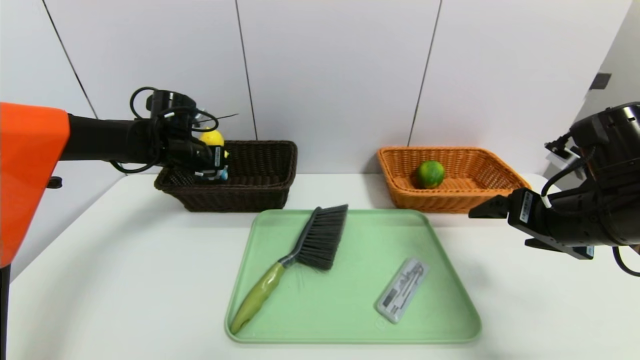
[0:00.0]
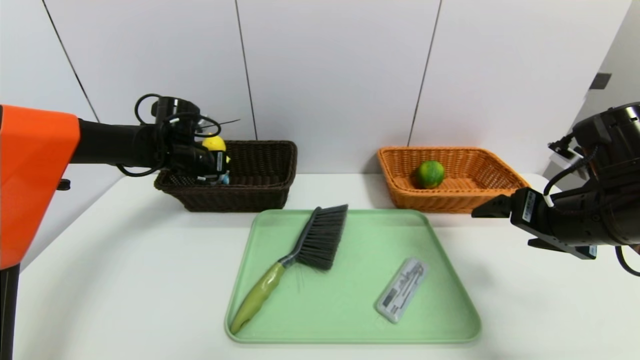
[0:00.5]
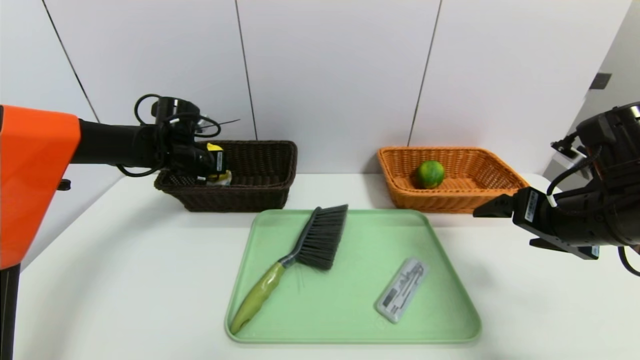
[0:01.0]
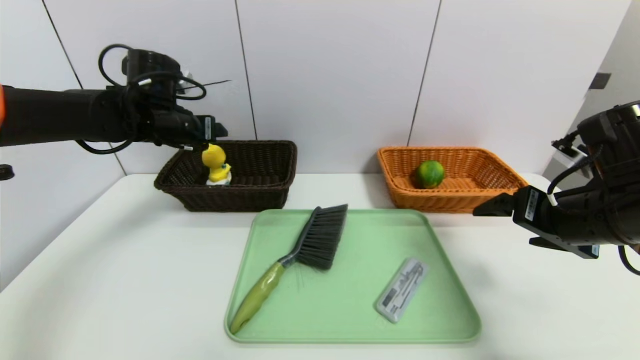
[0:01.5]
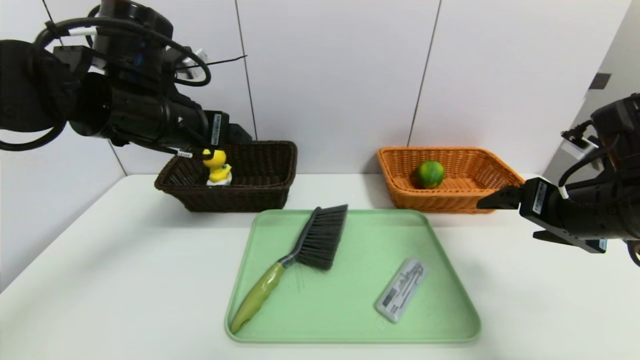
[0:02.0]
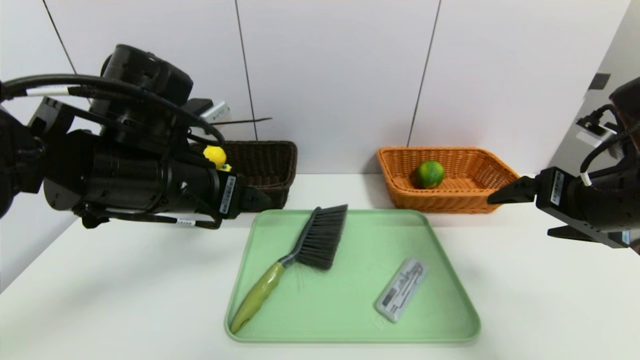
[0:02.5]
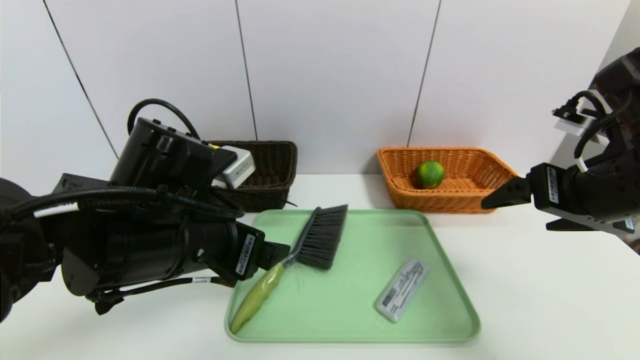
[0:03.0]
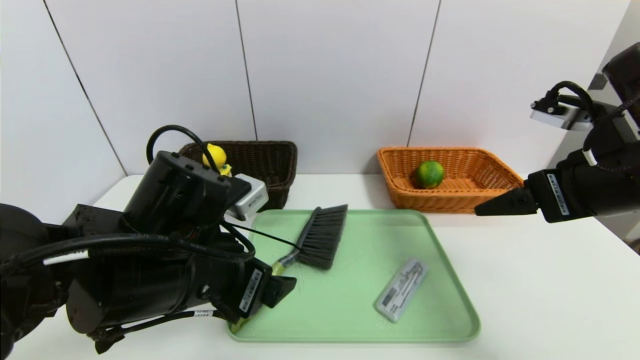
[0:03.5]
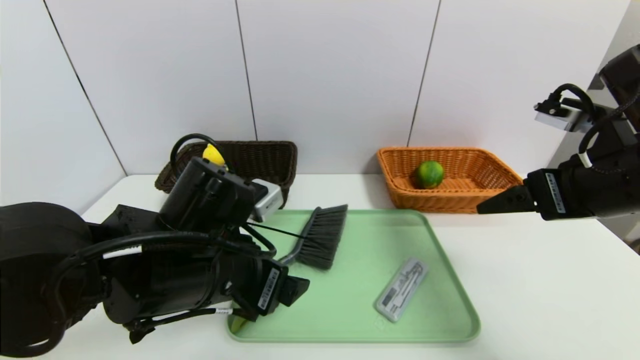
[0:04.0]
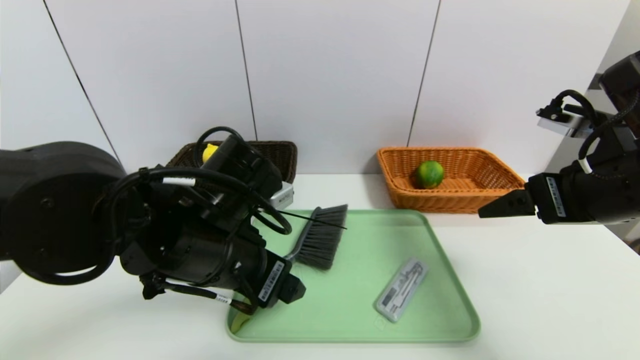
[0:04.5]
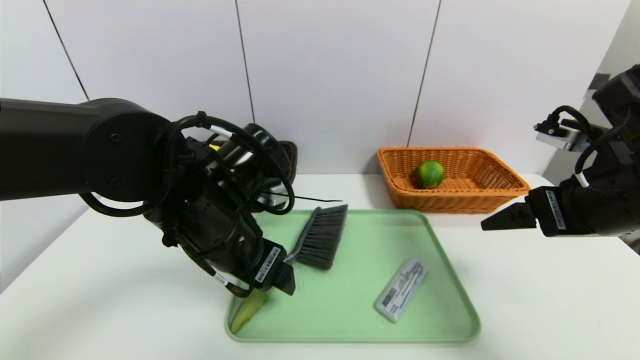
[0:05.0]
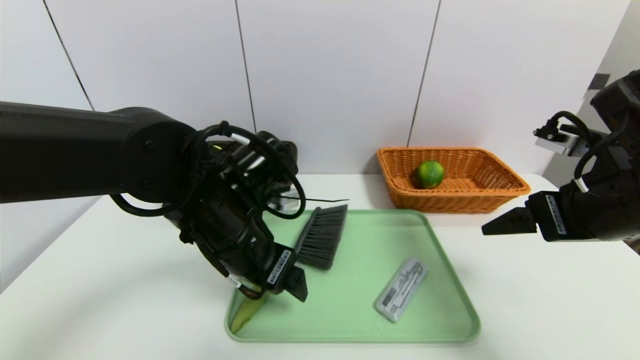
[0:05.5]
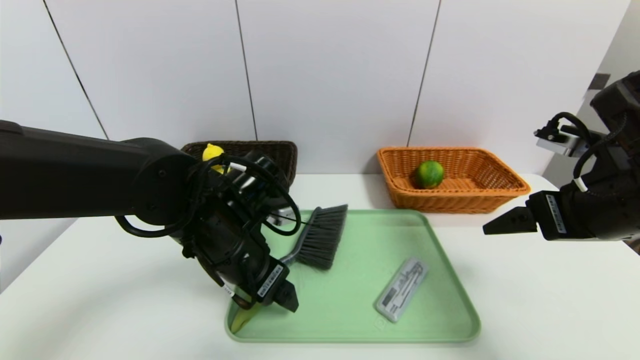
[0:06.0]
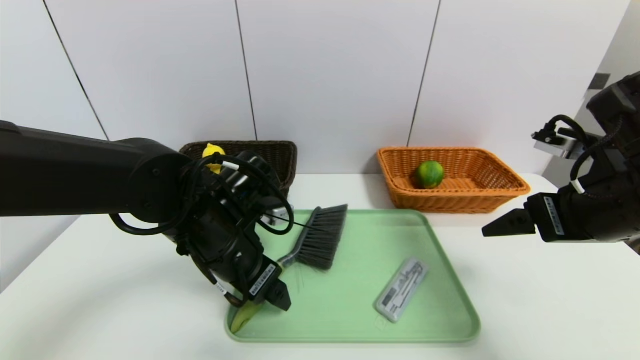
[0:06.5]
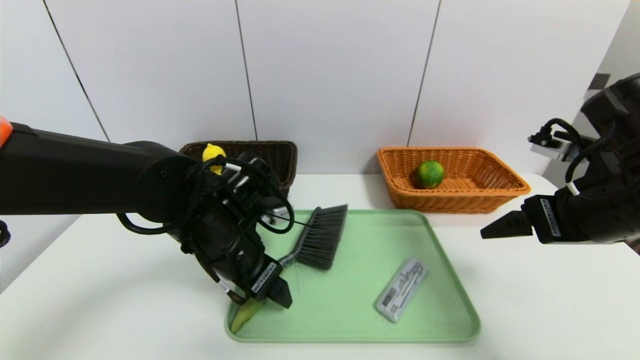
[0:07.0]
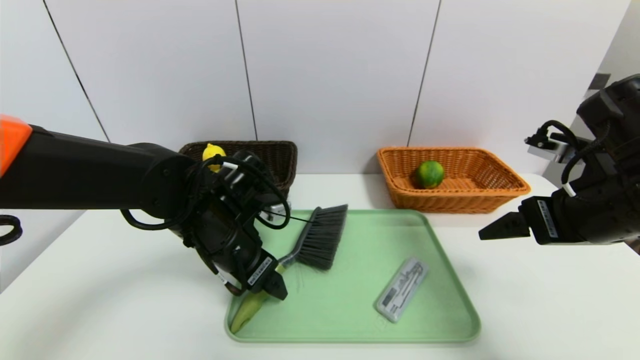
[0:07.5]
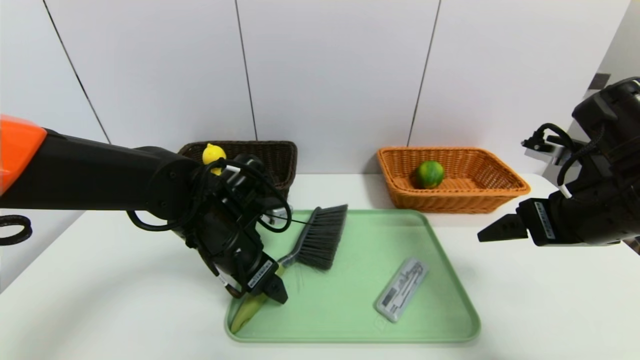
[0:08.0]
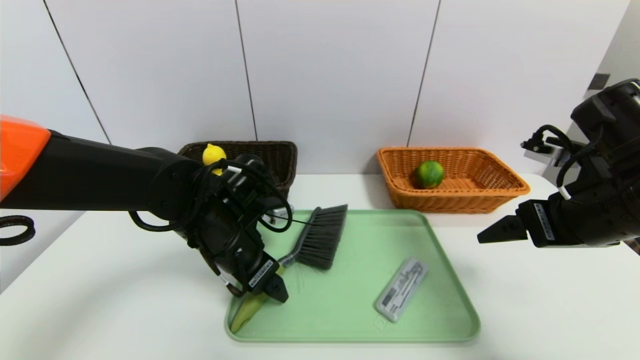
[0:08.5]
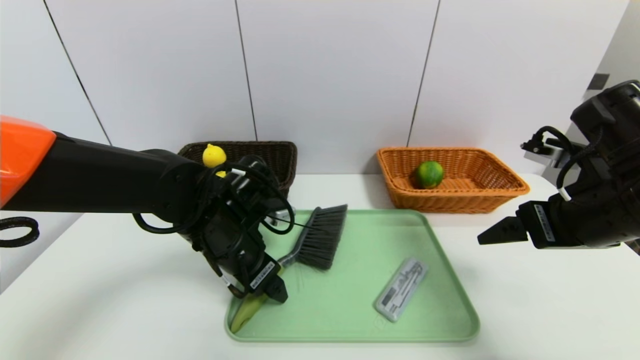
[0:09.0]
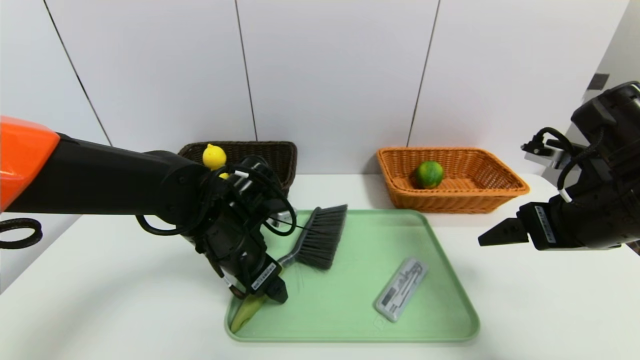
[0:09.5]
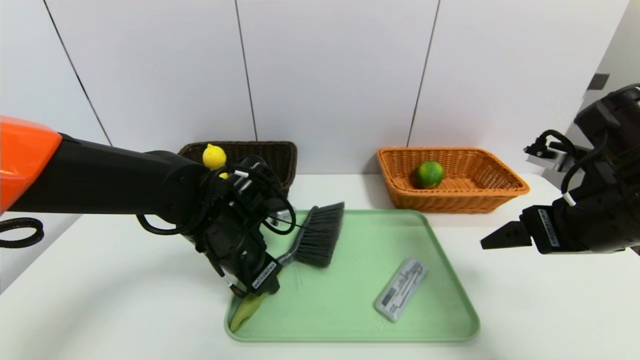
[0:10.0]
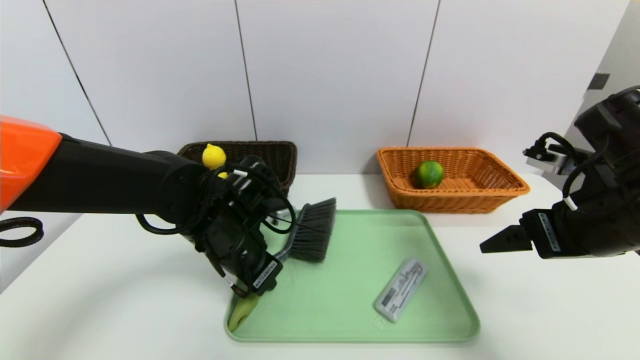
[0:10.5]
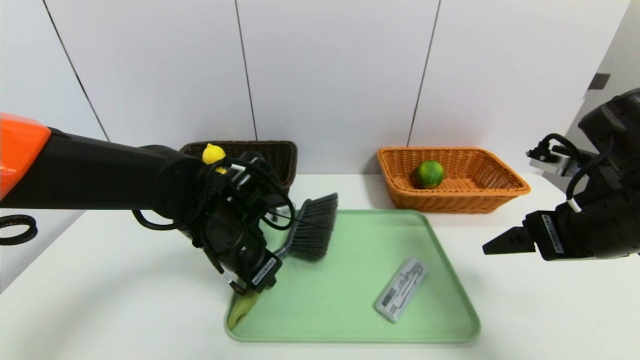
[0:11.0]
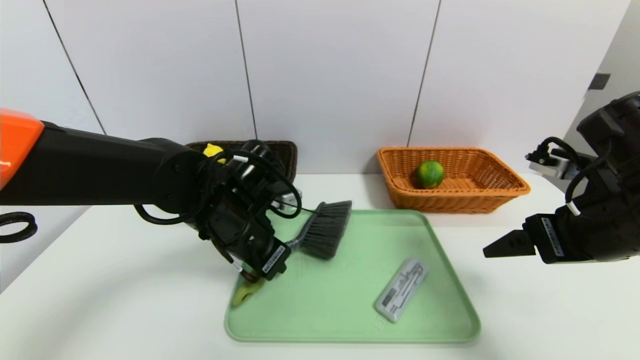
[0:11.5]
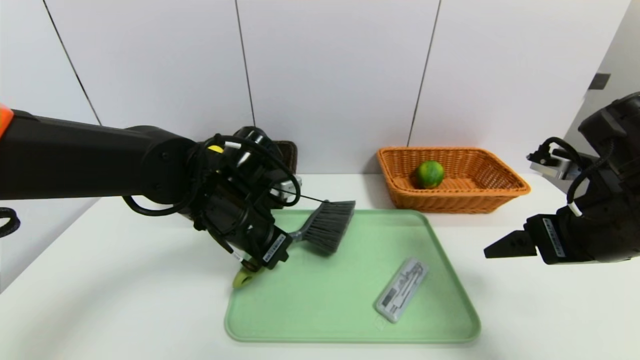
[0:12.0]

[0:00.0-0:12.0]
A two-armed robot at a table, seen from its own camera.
Task of the whole recording: place the food in the right basket with the right gripper, and place the non food items in the left basket with the left gripper.
0:00.0 to 0:02.0: The left gripper is displaced backward, upward and to the right by approximately 20 cm, and opens its fingers.
0:02.0 to 0:04.0: The left gripper heads downward, backward and to the right, covering some 15 cm.
0:04.0 to 0:06.0: The left gripper goes roughly 5 cm forward.
0:06.0 to 0:08.0: The grippers make only small movements.
0:08.0 to 0:10.0: The left gripper closes its fingers.
0:10.0 to 0:12.0: The grippers move only a little.

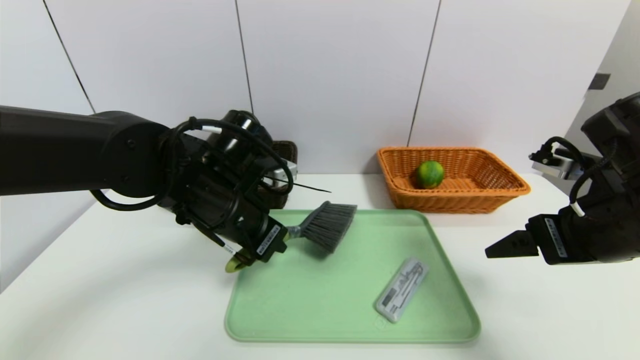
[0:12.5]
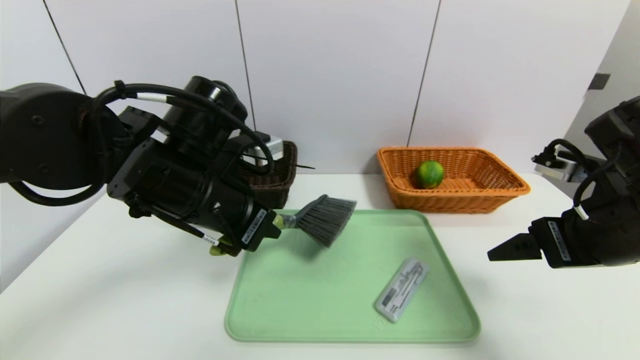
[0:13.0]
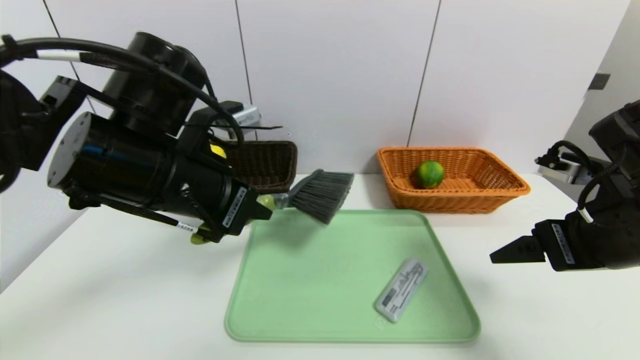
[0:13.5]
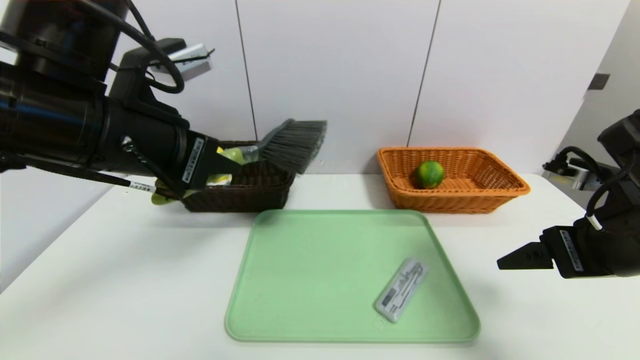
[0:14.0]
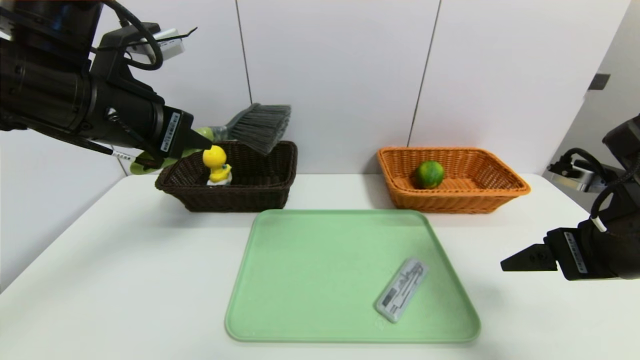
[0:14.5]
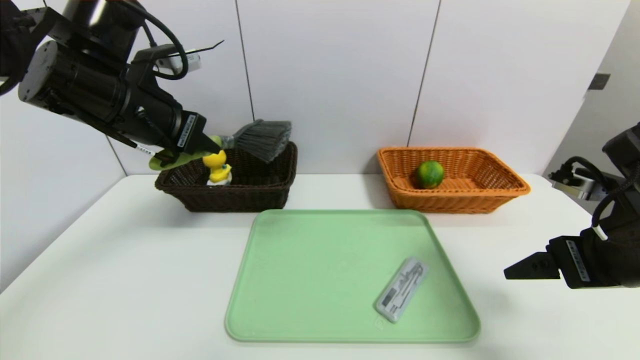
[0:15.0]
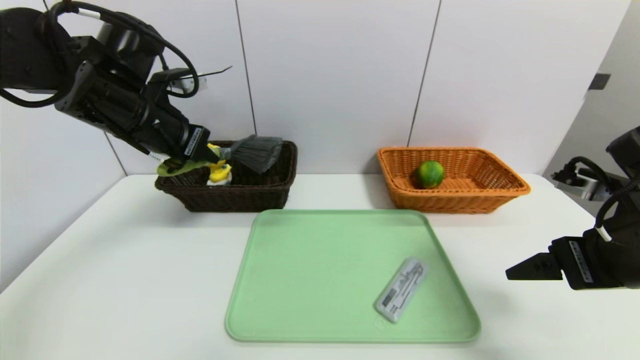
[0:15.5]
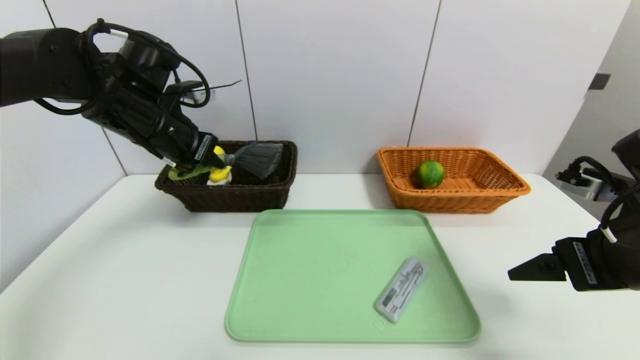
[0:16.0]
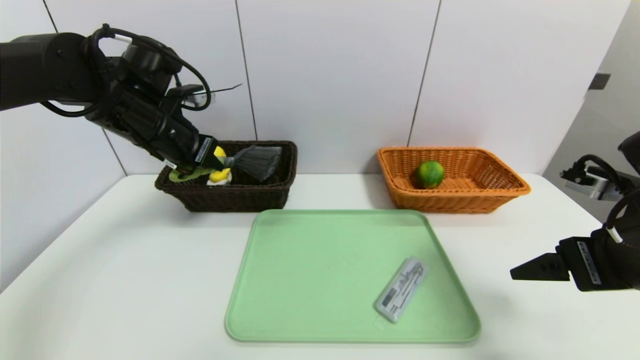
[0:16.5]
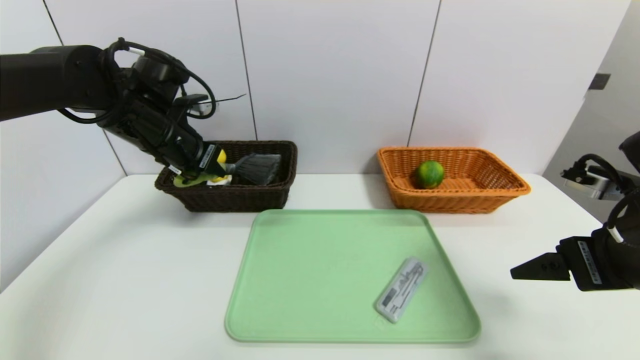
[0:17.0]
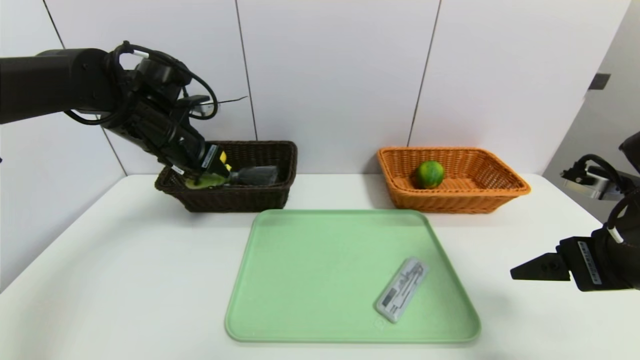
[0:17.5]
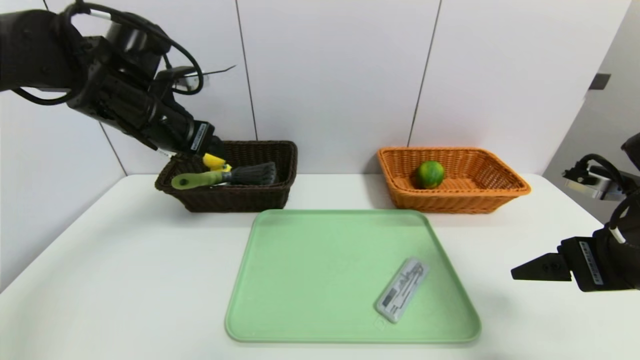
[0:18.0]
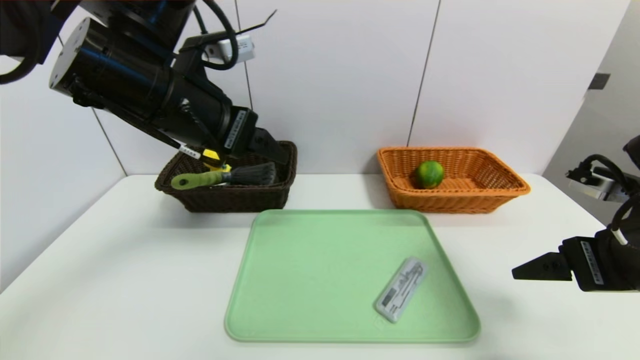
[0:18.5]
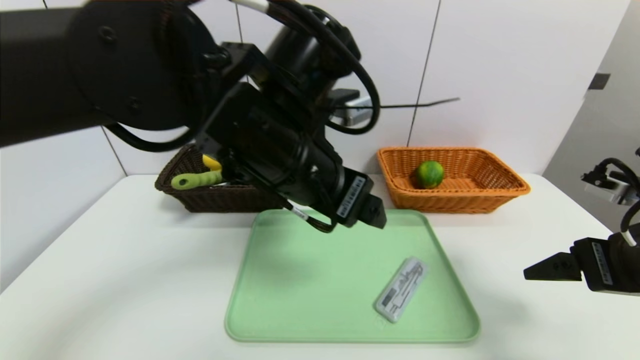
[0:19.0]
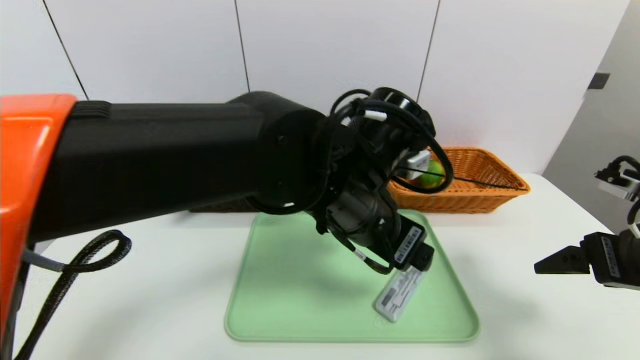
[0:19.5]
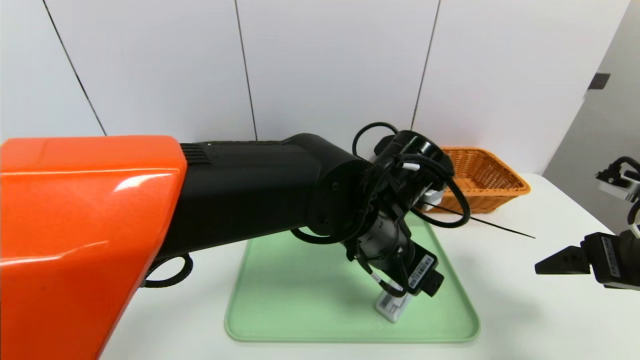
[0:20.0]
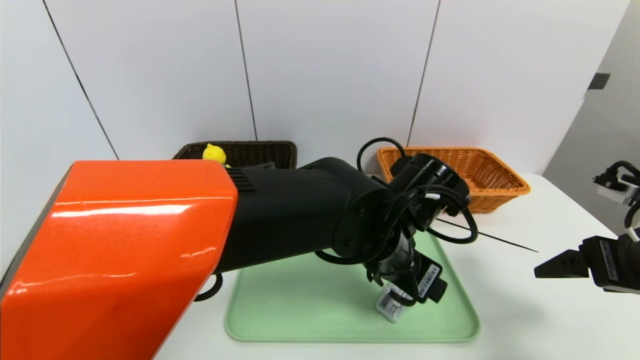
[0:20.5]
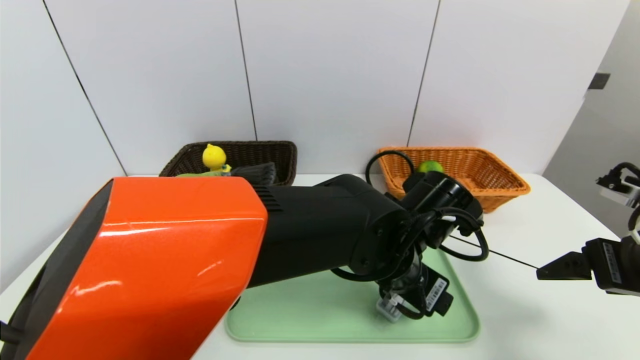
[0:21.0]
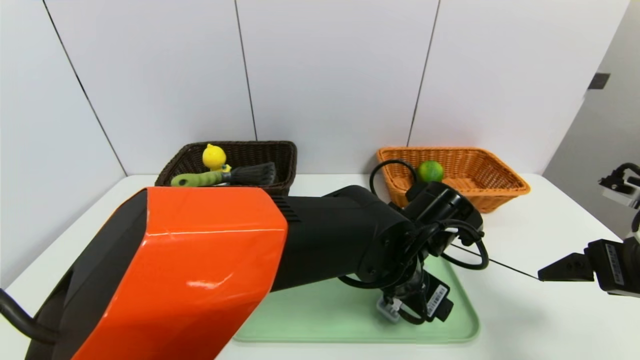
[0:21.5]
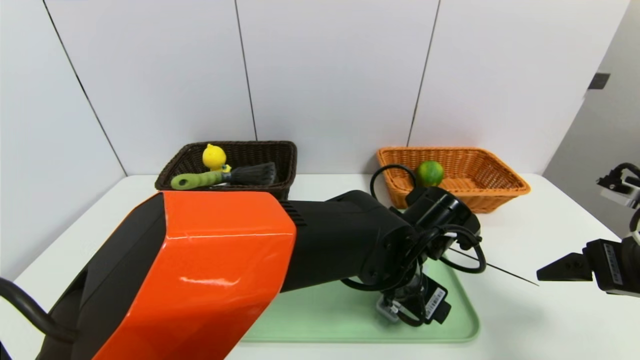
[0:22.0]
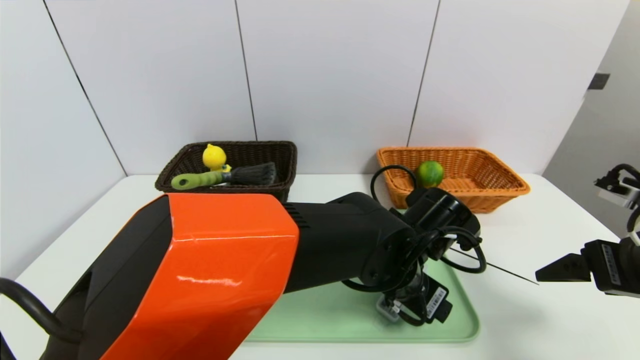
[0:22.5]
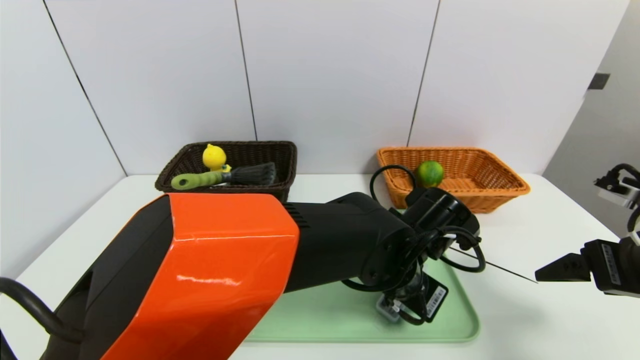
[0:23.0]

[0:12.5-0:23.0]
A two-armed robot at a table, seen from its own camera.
Task of the whole recording: place the food in the right basket with the right gripper, and place the non food items in the left basket with the left gripper.
Step, 0:12.5 to 0:17.5: Grasp the brush and put it in the left basket.
0:12.5 to 0:14.5: The left gripper is displaced upward and to the left by about 15 cm.
0:14.5 to 0:16.5: The left gripper heads forward and downward, covering approximately 10 cm.
0:16.5 to 0:19.0: The left gripper travels to the right and backward by roughly 25 cm, and opens up.
0:19.0 to 0:21.0: The left gripper shifts about 15 cm downward and to the right.
0:21.0 to 0:23.0: The left gripper closes its fingers.
